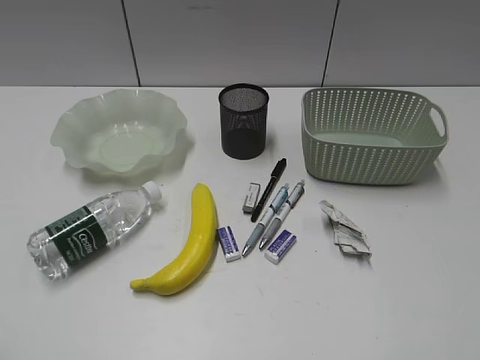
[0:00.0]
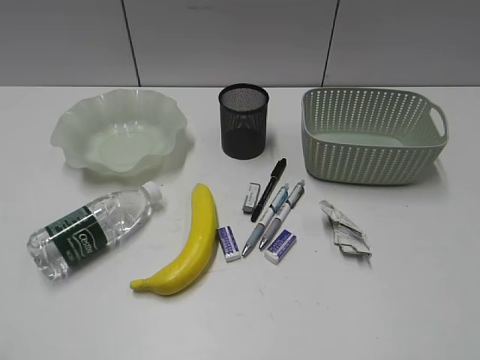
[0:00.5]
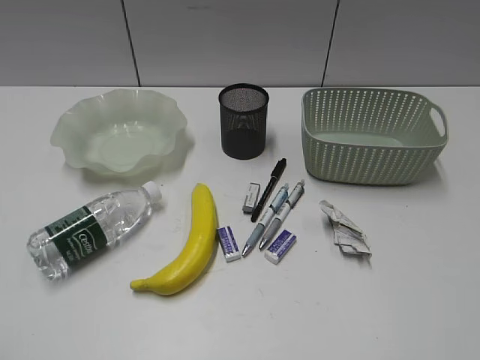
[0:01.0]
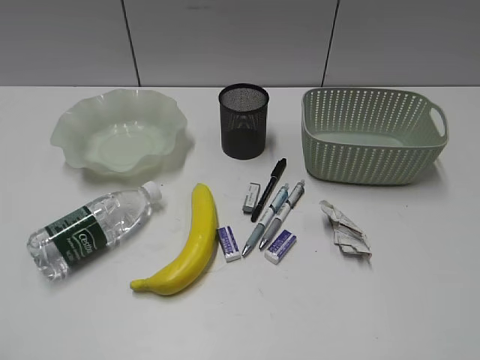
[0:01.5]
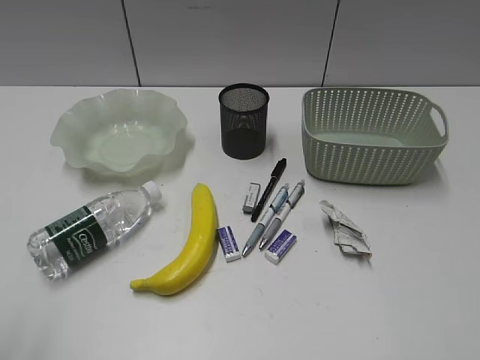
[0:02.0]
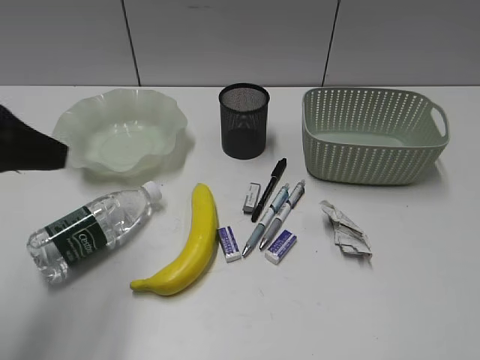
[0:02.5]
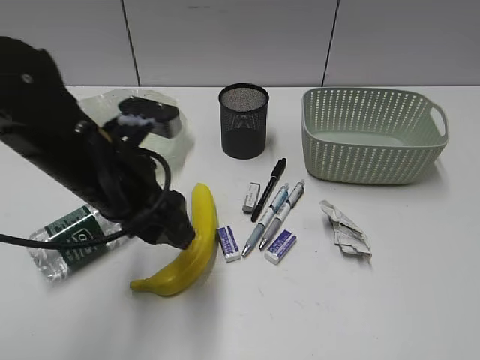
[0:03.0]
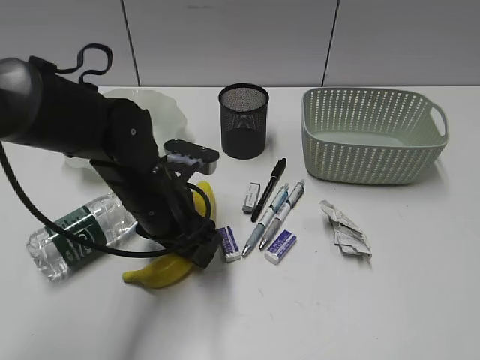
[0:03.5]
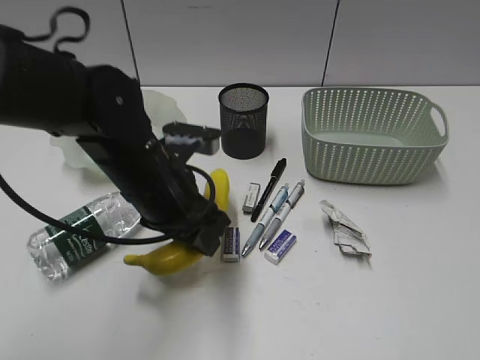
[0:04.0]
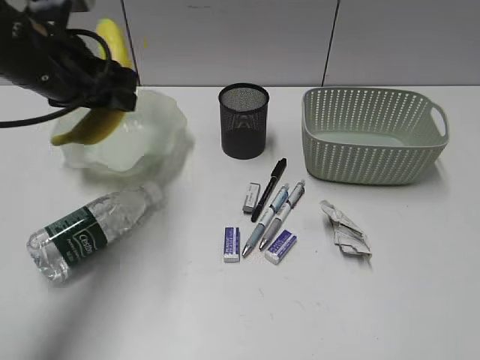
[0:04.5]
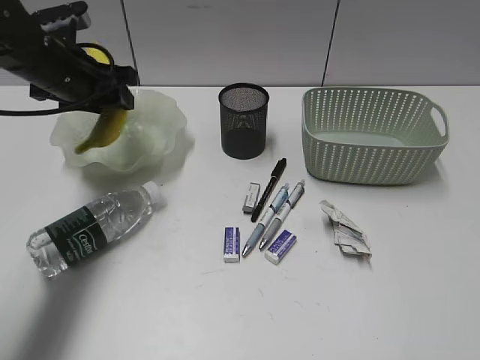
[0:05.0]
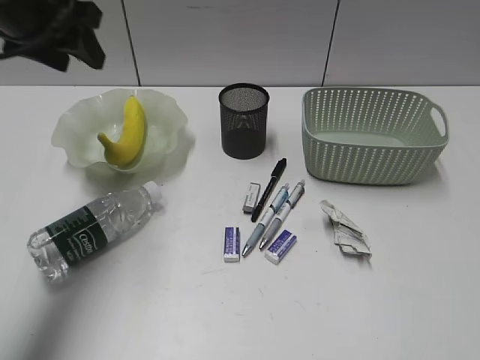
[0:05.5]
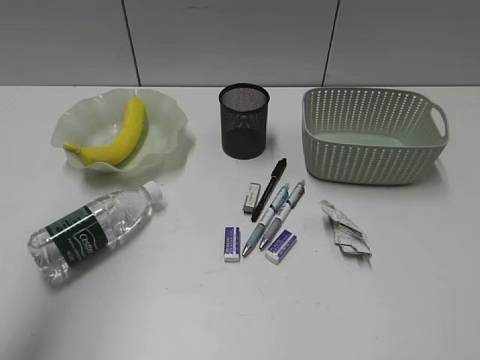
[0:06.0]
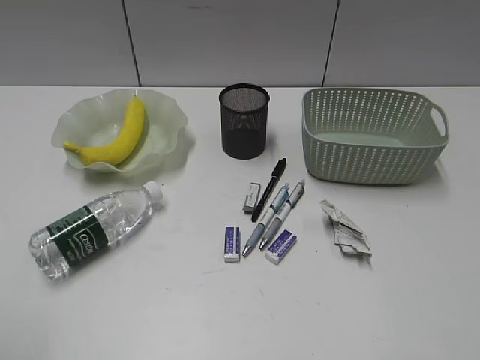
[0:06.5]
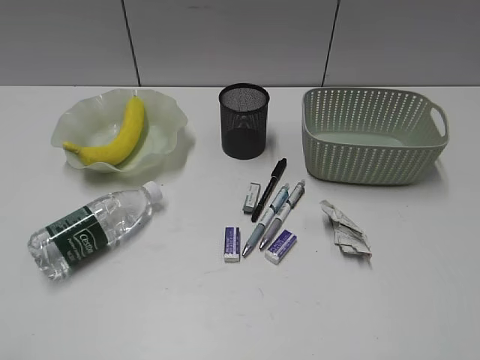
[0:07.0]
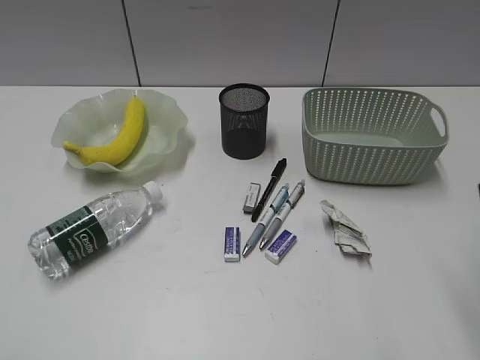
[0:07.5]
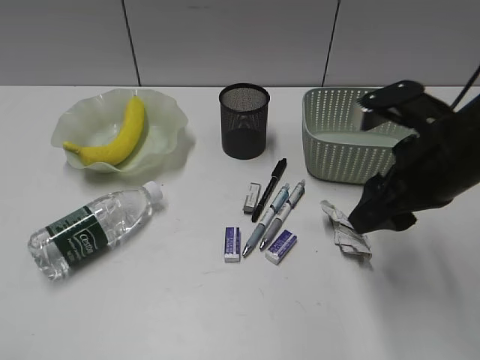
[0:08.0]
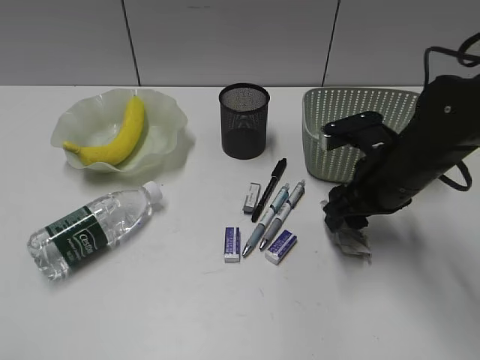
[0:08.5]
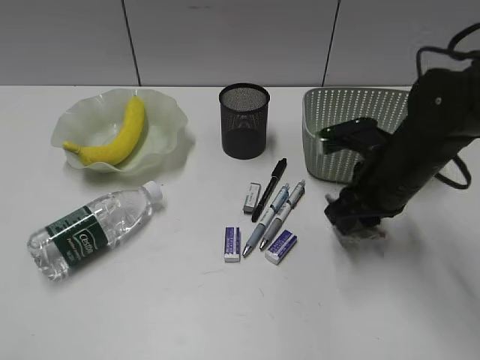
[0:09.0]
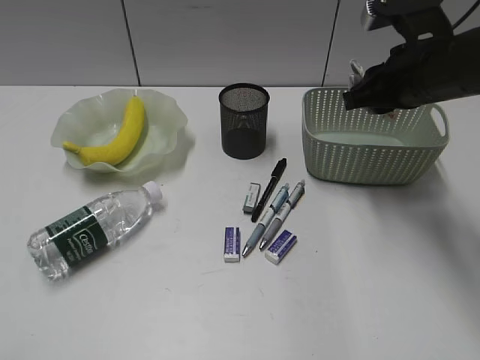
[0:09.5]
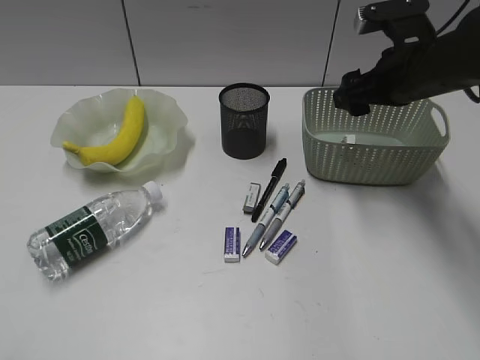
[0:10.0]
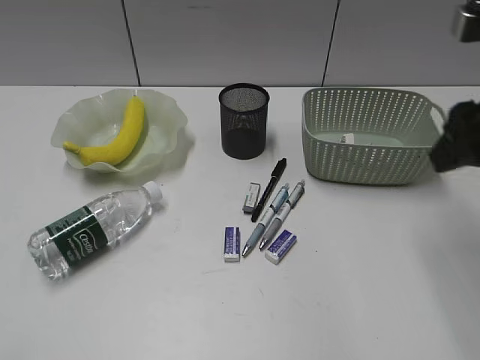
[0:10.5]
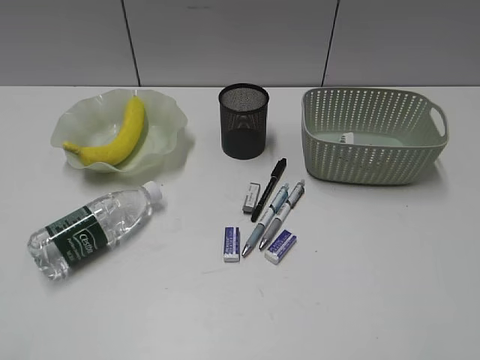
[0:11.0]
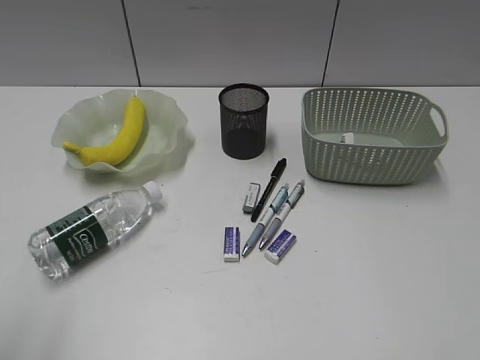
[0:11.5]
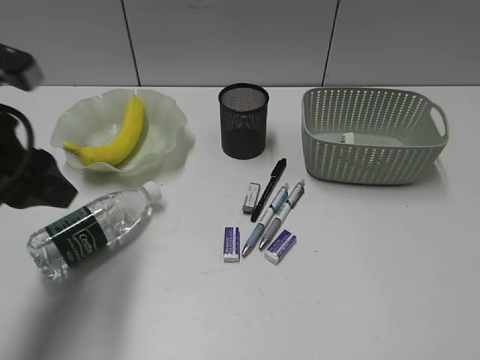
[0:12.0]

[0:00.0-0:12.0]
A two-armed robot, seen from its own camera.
Step, 1.5 to 3.5 s: Grasp the banana with left gripper.
Step, 4.0 to 5.0 s: Place the banana in the plate with left gripper.
Step, 5.5 to 8.5 s: Grasp the waste paper with right gripper.
Step, 9.0 to 9.5 s: Place the waste paper in the basket with right gripper.
2.0 to 4.0 s: The left gripper is displaced forward, to the right and downward by approximately 35 cm.
4.0 to 6.0 s: The left gripper swings up and down, roughly 30 cm each way, with 2 reversals.
6.0 to 8.0 s: The left gripper moves backward and downward, approximately 25 cm. The right gripper is displaced forward and to the left by some 30 cm.
8.0 to 10.0 s: The right gripper travels forward by some 10 cm, and closes, then reopens.
10.0 to 12.0 s: The left gripper goes some 25 cm forward. The right gripper travels backward by roughly 40 cm.

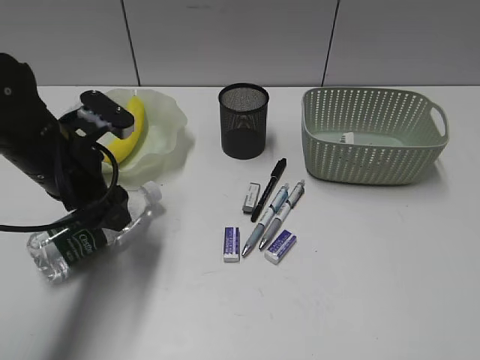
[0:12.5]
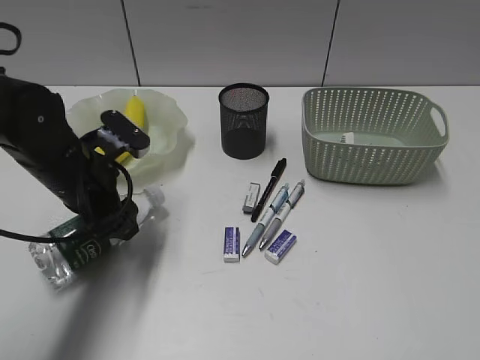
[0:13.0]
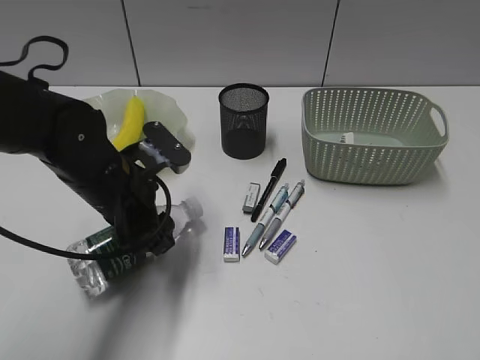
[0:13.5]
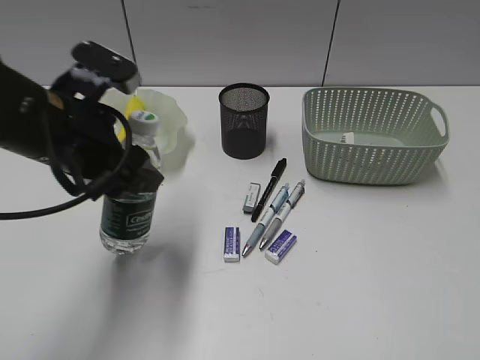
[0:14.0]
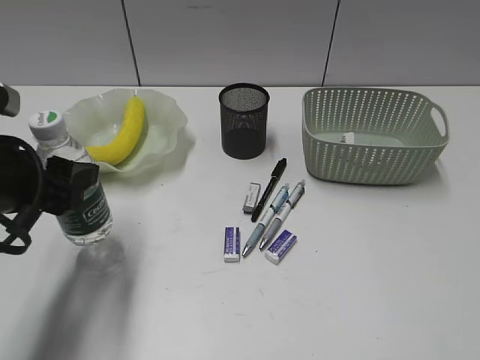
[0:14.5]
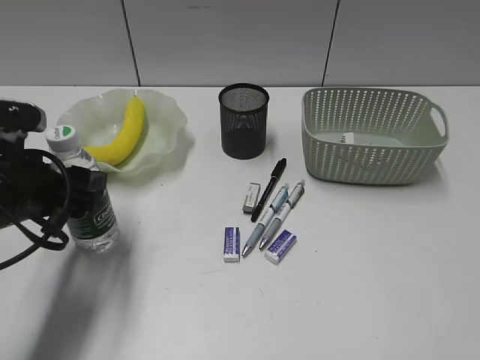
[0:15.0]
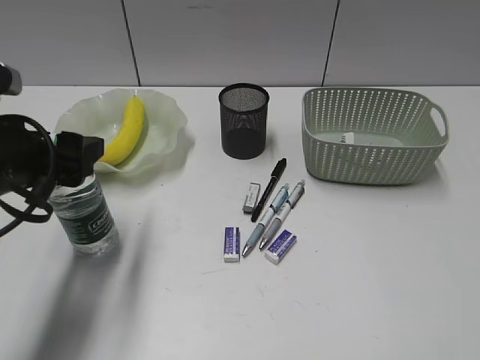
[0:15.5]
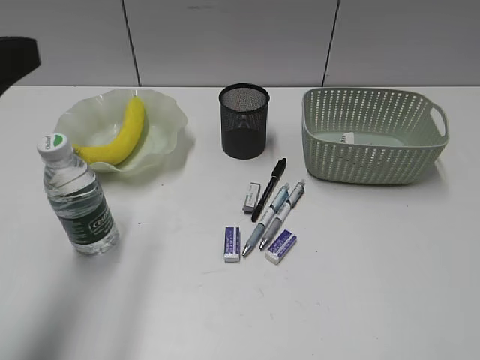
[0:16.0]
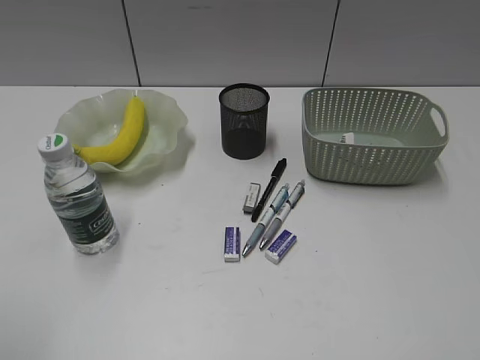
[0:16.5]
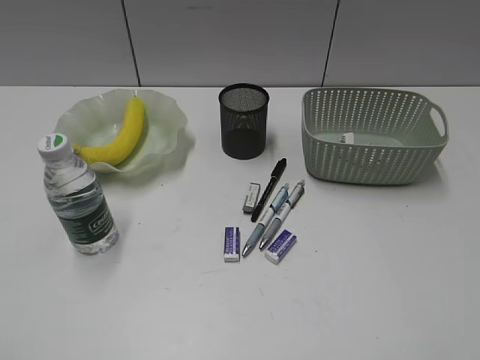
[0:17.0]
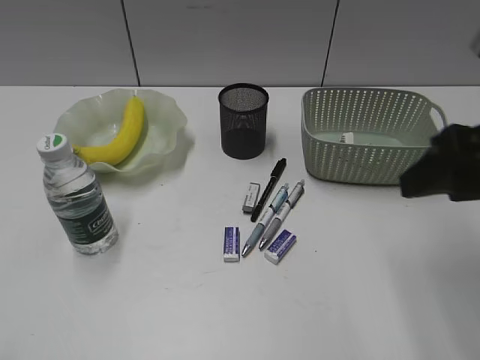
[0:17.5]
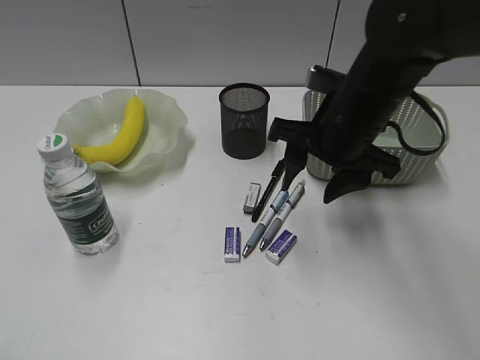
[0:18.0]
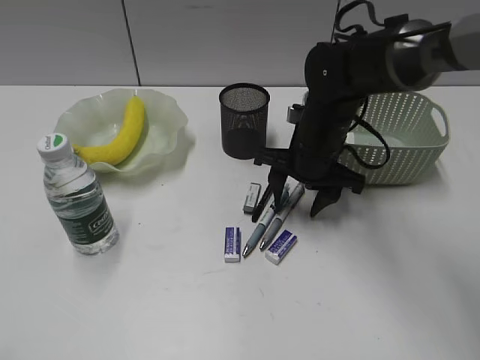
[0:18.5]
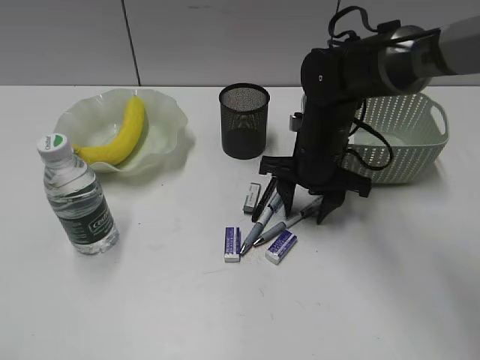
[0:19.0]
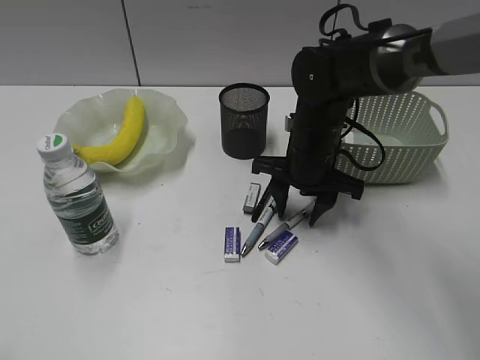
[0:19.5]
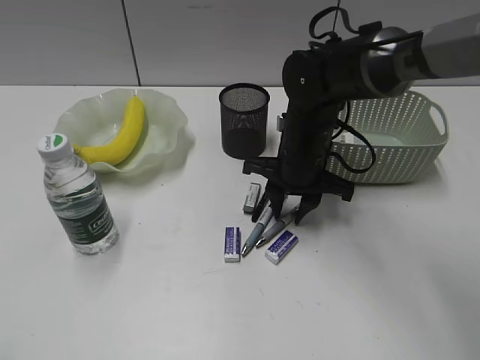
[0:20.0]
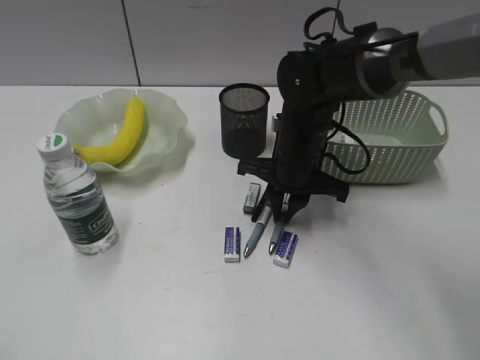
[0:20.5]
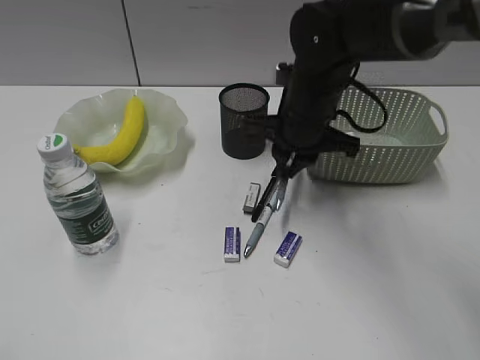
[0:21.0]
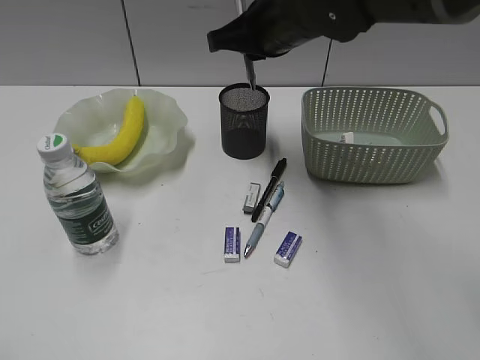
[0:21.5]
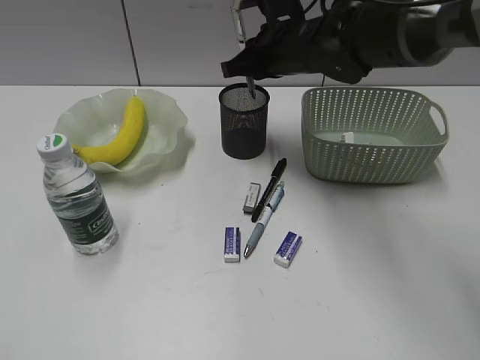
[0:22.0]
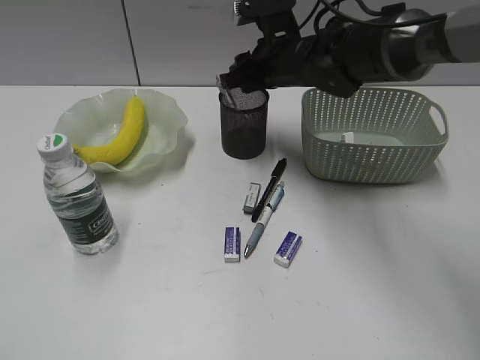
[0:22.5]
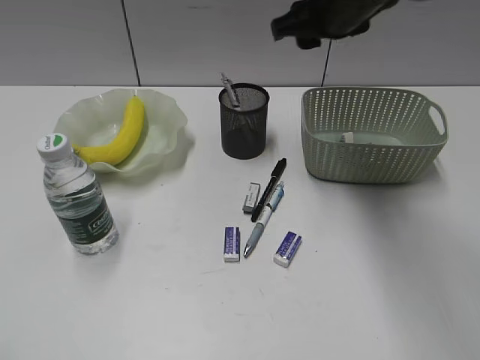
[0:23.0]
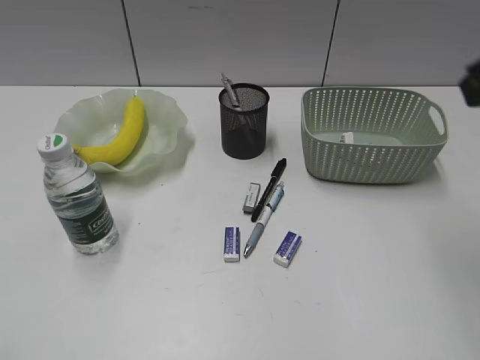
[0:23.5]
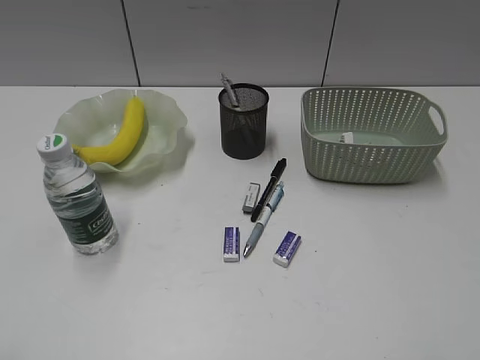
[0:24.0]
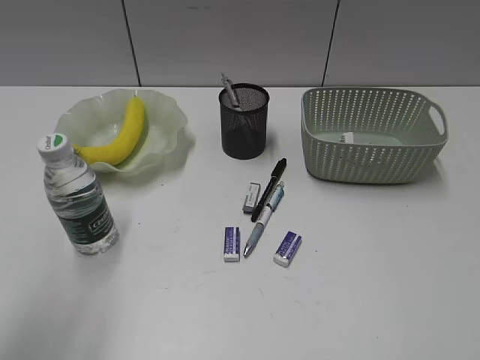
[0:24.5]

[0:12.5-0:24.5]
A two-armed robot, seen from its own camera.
Step, 13.5 to 15.5 s: Stand the bottle with left gripper.
Step, 16.0 to 20.5 s: Grasp the gray pen with right gripper.
Step, 21.0 to 22.5 s: Place the gray pen in pen holder with right gripper.
12.5 to 14.5 s: The left gripper shifts about 10 cm backward.
14.5 to 16.5 s: The left gripper heads backward, upward and to the left, covering some 20 cm.
16.5 to 18.5 s: The right gripper goes about 50 cm forward, to the left and downward, while the left gripper moves backward, about 5 cm.
18.5 to 20.5 s: The right gripper closes its fingers.
20.5 to 22.5 s: The right gripper shifts roughly 10 cm forward and upward, and opens its fingers.
22.5 to 24.5 s: The right gripper travels backward and to the right by some 50 cm. The left gripper is displaced forward by approximately 10 cm.

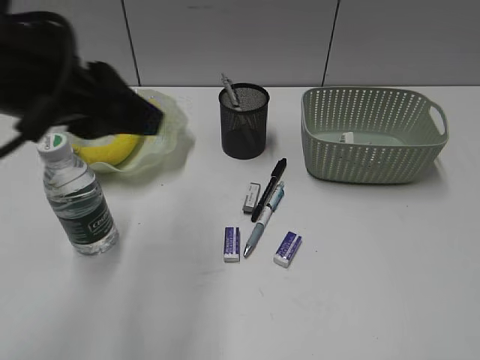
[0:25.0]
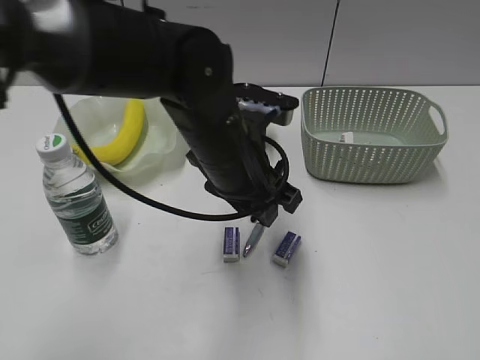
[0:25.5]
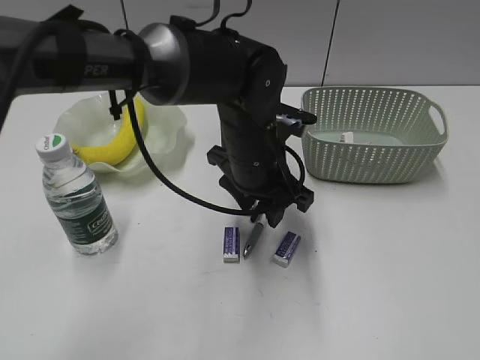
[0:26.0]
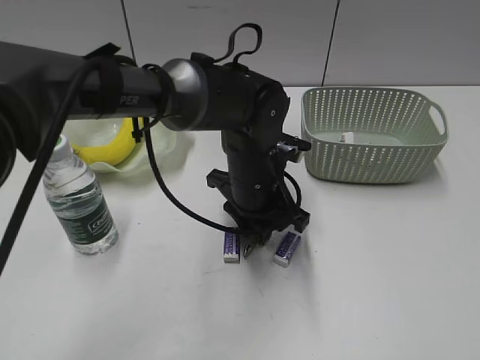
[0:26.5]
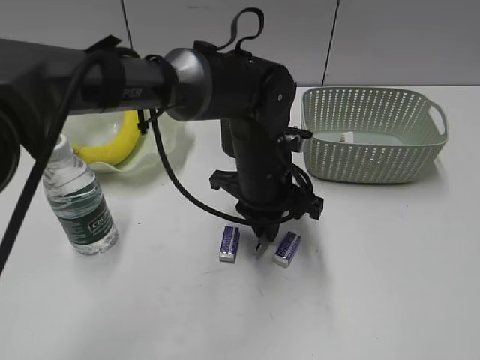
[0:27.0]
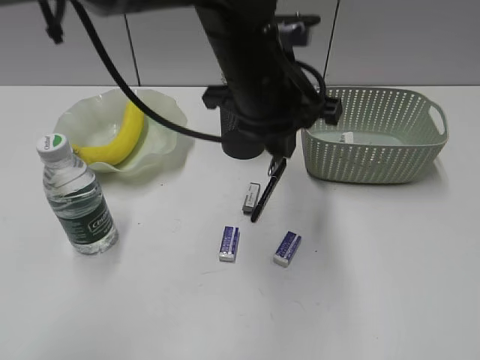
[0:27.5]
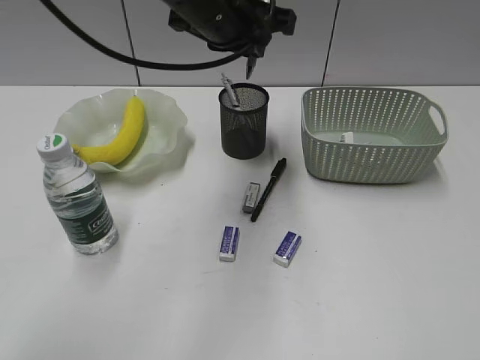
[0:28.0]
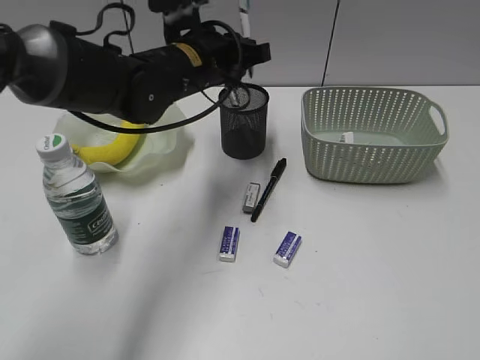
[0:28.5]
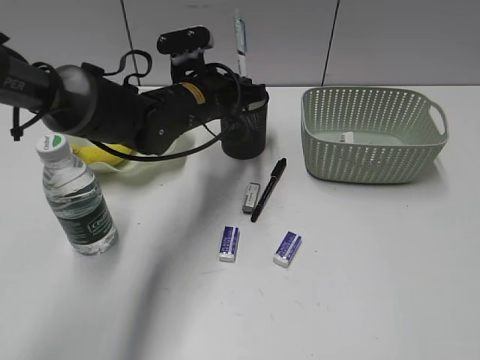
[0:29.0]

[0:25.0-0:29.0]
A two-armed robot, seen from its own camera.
25.0 to 27.0 s: The left gripper shifts roughly 30 cm to the right, downward and forward, and closes its fingers.
27.0 to 29.0 s: The left gripper travels to the left and forward by roughly 10 cm, and reaches approximately 15 cm upward, then returns.
